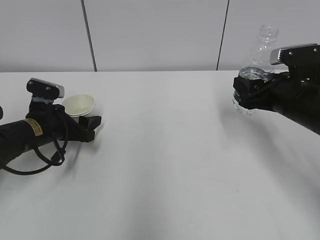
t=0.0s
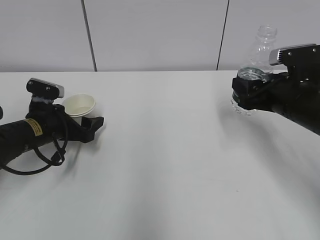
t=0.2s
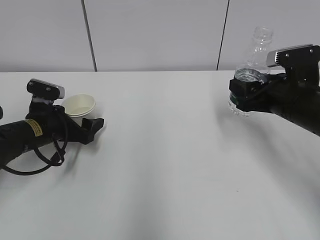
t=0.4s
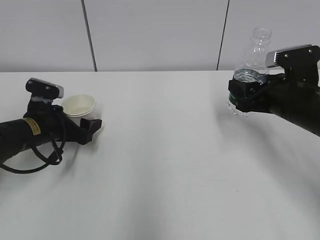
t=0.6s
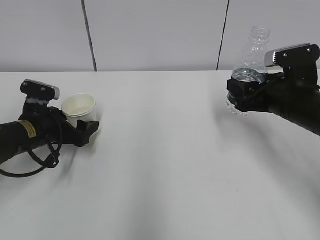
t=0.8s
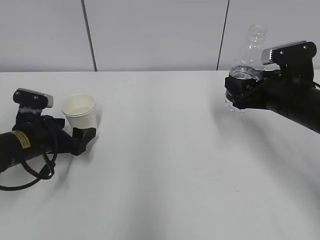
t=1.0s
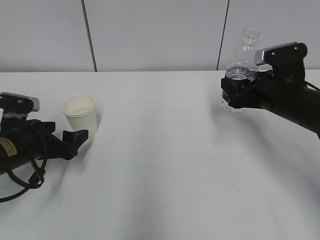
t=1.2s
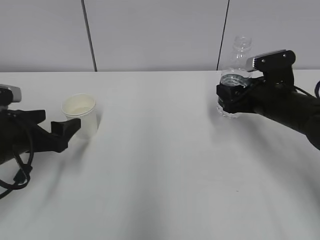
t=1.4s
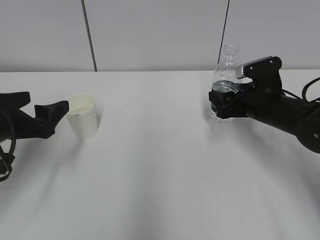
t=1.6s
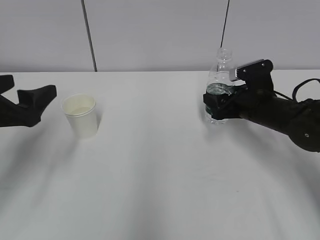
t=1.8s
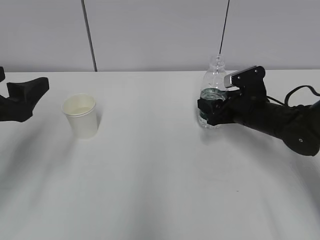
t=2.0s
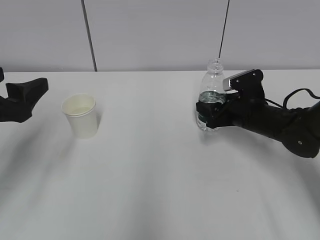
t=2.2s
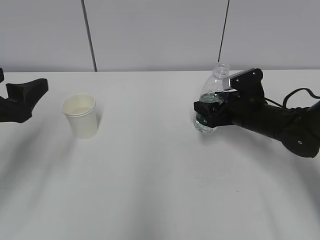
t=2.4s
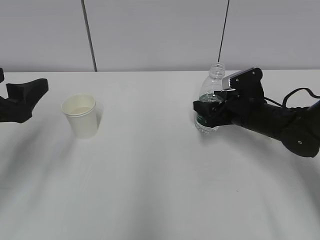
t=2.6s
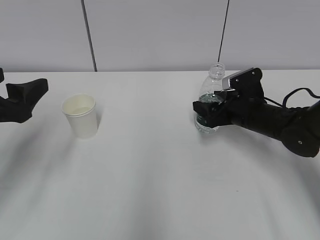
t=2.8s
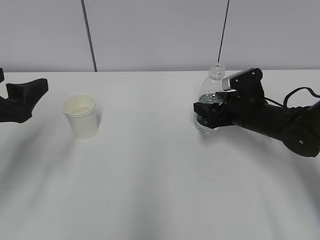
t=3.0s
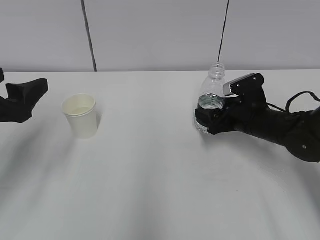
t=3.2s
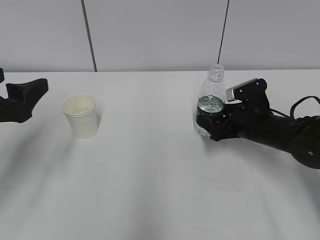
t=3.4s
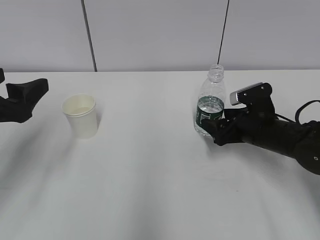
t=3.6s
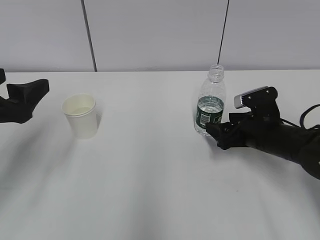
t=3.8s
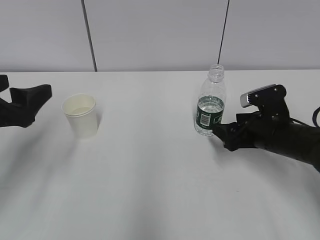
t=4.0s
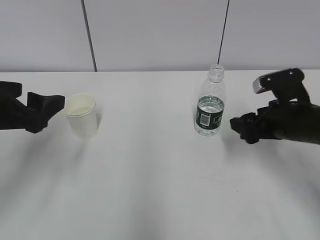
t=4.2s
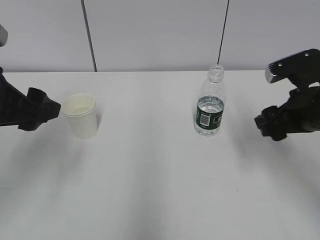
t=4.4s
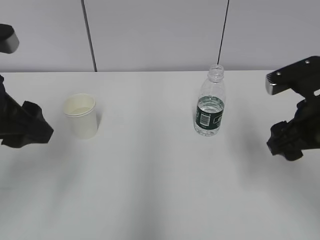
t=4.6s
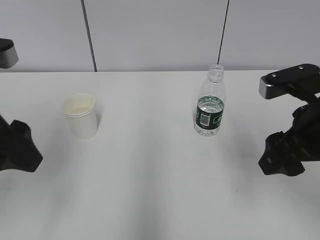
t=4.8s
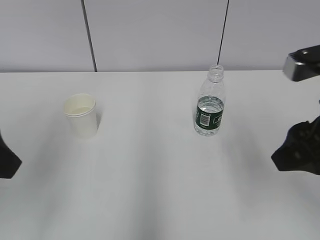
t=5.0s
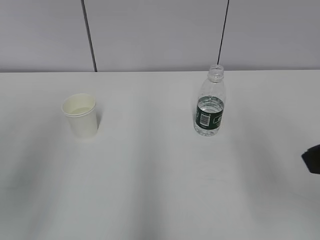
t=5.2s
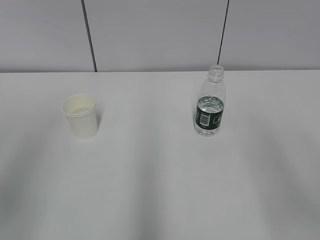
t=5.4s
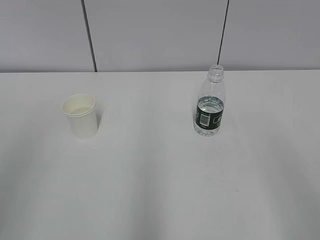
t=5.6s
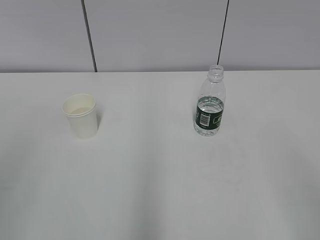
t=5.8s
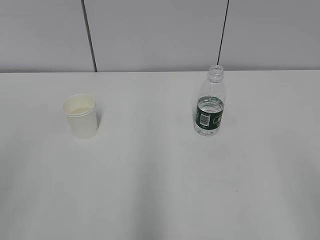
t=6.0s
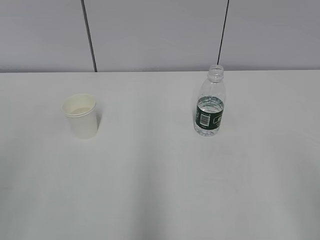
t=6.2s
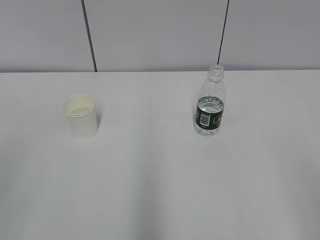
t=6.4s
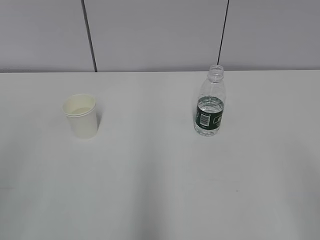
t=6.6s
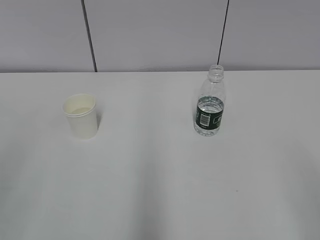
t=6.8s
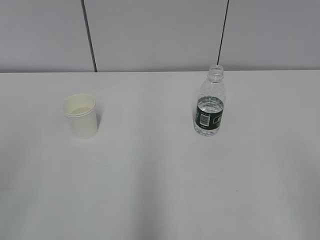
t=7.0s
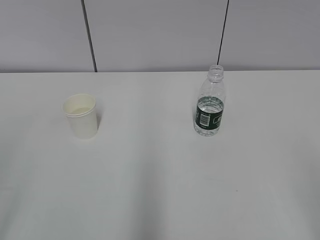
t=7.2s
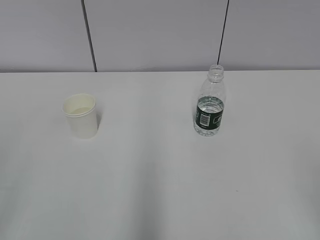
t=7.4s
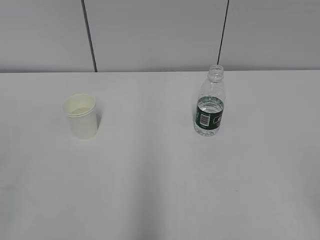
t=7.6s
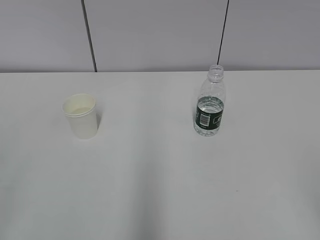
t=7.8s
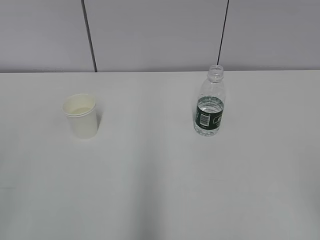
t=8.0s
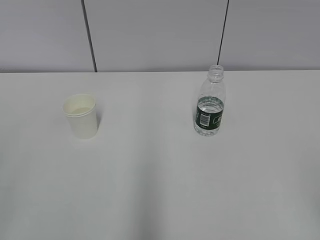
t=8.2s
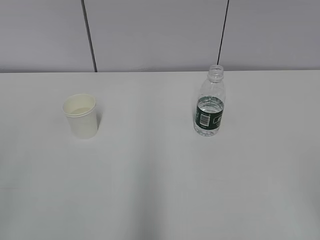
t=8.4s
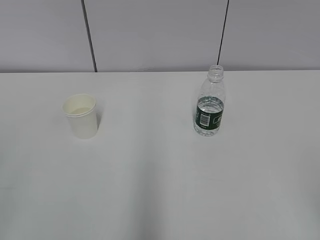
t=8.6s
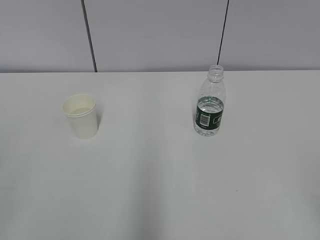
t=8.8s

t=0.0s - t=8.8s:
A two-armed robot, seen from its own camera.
t=0.0s - t=1.4s: The left gripper moves backward, roughly 10 cm, and opens.
t=1.4s - t=3.0s: The left gripper moves upward, about 10 cm; the right gripper heads downward, covering some 5 cm, and opens its fingers.
t=3.0s - t=4.4s: The right gripper goes approximately 15 cm backward and upward.
t=4.4s - t=5.8s: Both grippers travel together backward, approximately 25 cm.

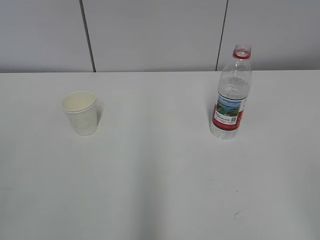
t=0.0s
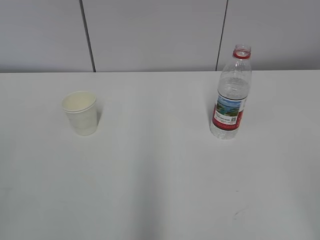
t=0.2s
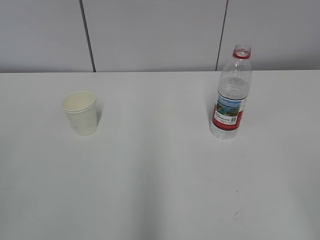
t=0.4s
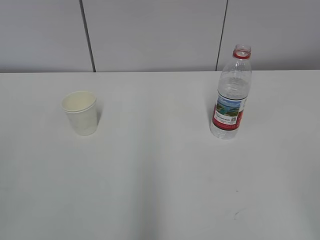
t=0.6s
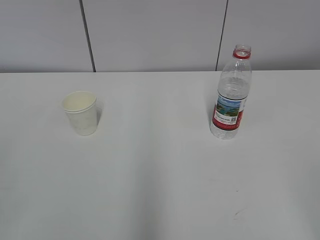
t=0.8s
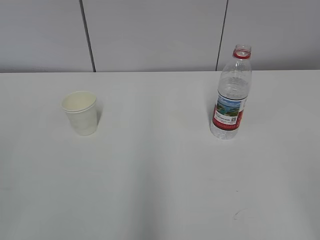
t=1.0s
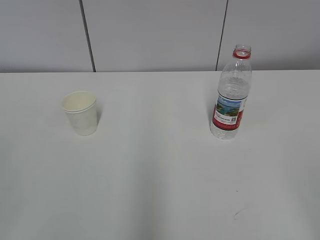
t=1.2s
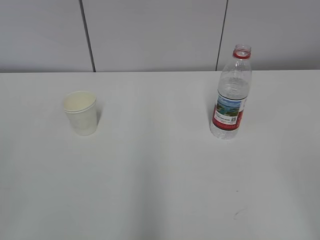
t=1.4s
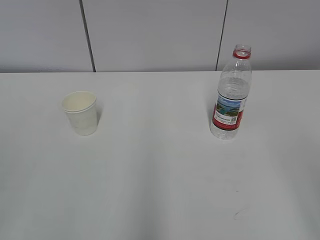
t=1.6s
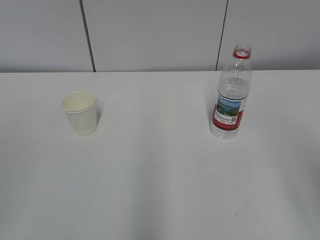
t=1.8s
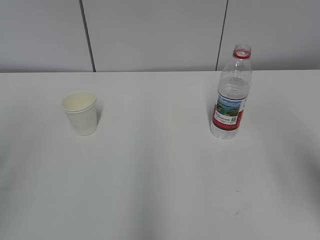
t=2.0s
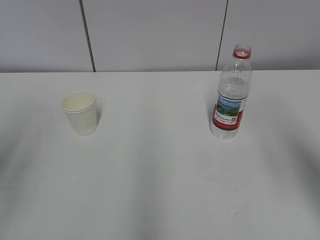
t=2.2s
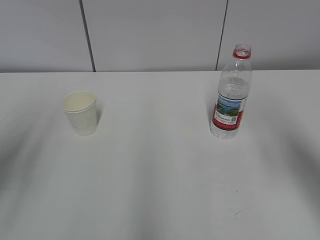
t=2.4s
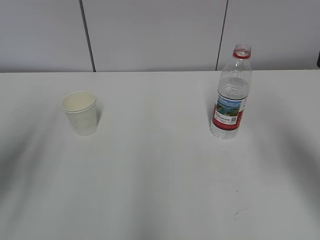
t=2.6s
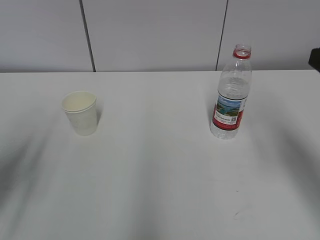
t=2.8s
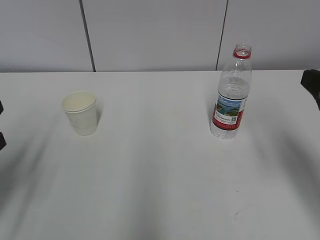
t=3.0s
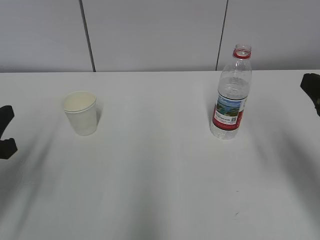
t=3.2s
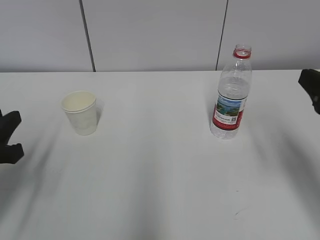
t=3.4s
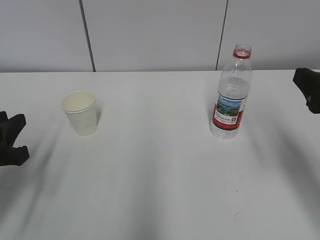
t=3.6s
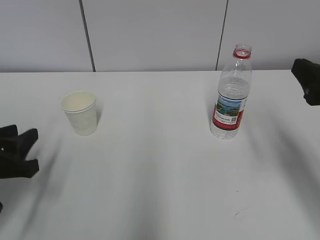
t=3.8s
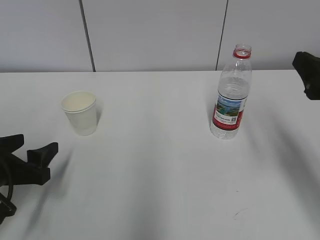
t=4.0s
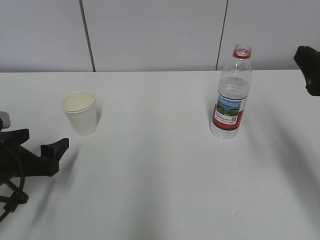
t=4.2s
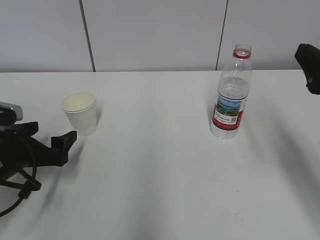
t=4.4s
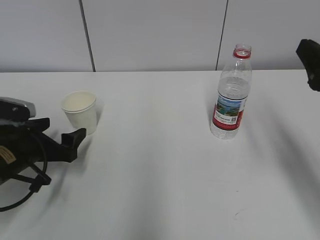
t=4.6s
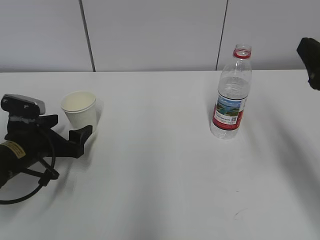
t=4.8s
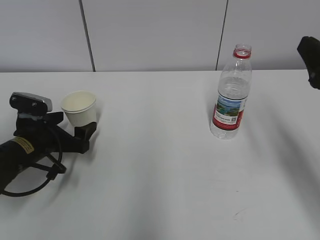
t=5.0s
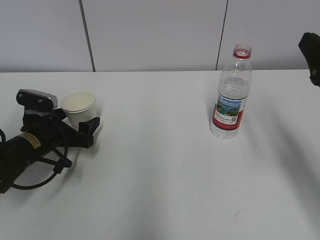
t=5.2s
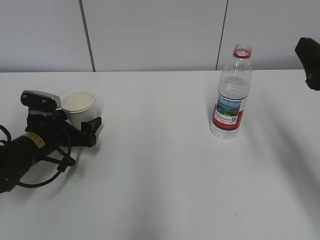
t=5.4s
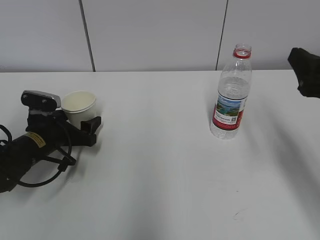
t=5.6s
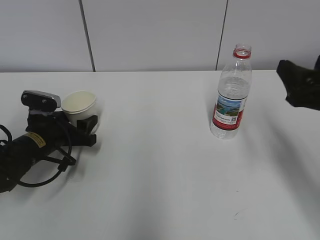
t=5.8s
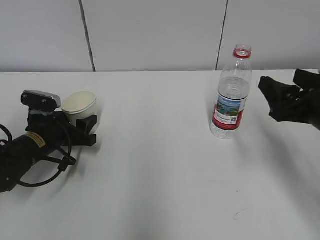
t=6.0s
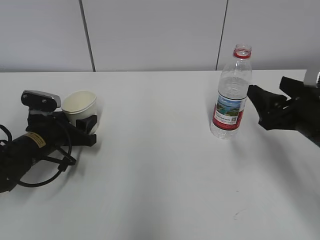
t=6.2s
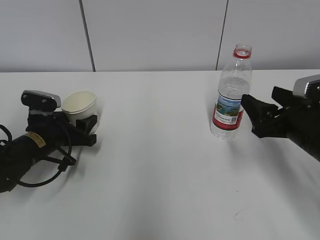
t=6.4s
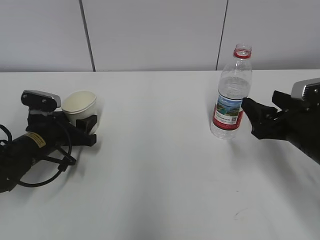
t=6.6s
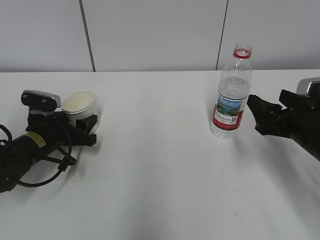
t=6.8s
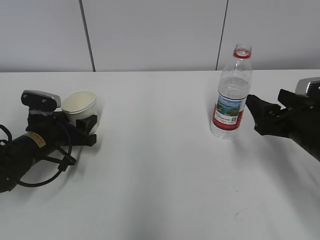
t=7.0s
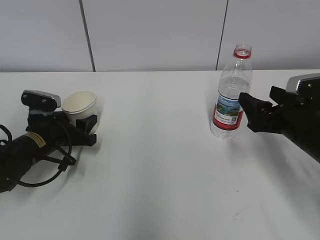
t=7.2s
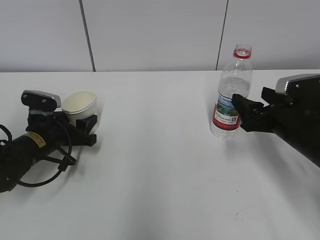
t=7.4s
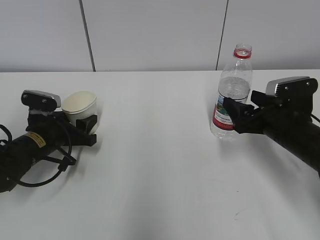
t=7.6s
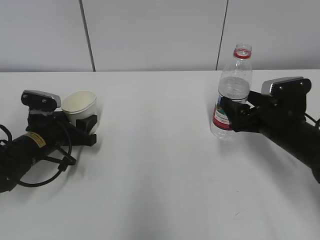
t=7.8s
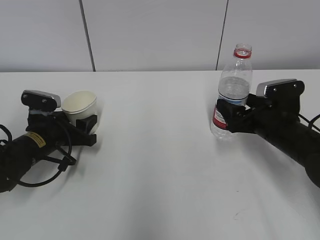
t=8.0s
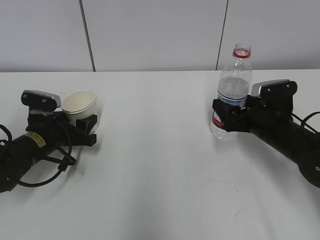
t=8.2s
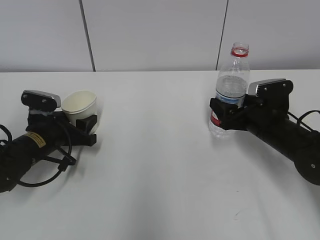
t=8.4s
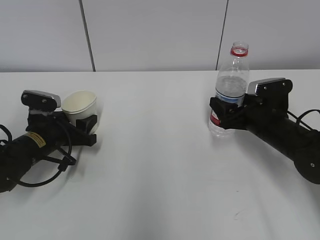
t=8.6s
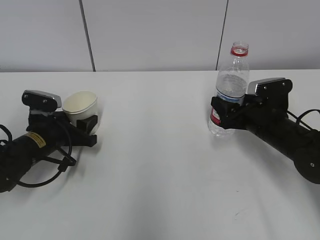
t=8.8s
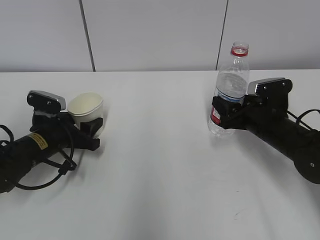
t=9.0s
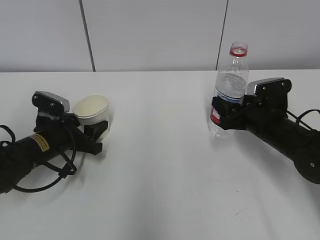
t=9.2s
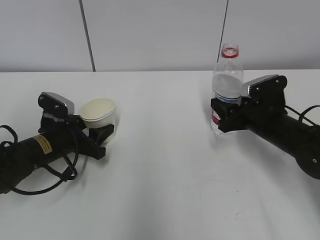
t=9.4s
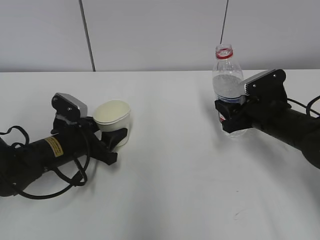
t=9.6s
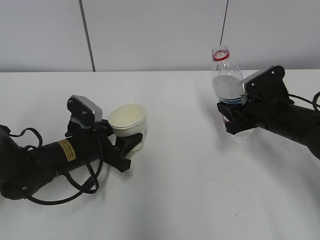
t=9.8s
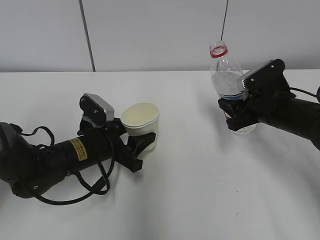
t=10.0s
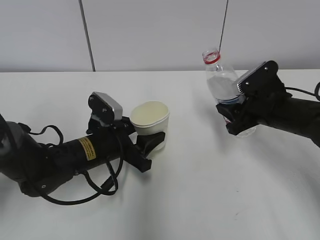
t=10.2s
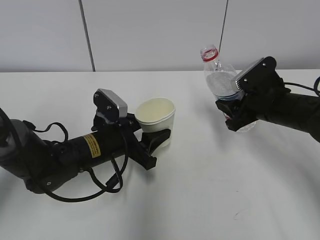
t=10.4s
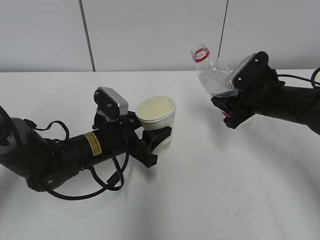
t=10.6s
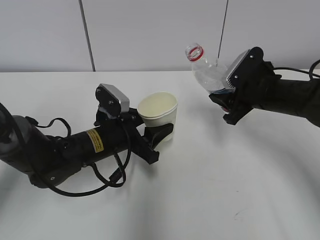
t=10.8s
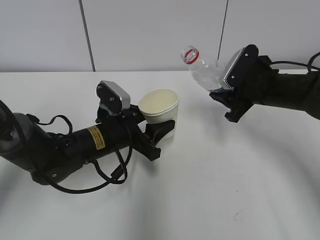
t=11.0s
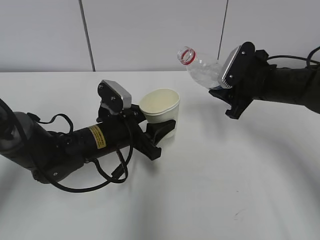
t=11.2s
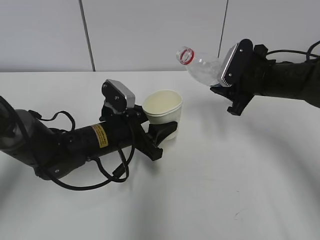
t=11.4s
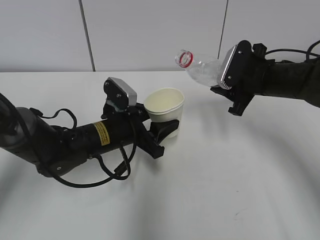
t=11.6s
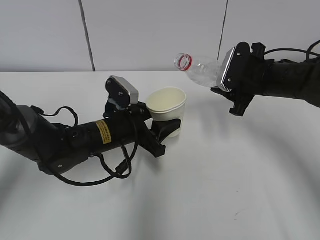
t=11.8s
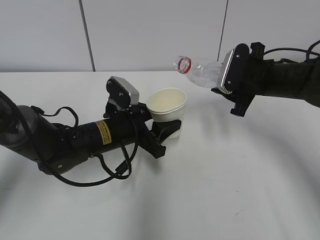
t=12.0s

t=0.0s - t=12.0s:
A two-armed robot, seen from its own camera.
Step, t=0.0s - t=7.2s: Grab the paper cup with the left hand.
Step, t=7.4s - t=7.6s: Grab the water bottle with the right hand.
t=1.6s - t=3.0s: The right gripper heads forward, covering approximately 20 cm; the left gripper travels forward and downward by roughly 20 cm.
t=3.0s - t=4.4s: The left gripper travels downward and forward by approximately 15 cm, and opens up.
t=4.4s - t=6.0s: The left gripper moves forward, approximately 10 cm, and closes up, while the right gripper goes some 5 cm downward.
t=6.0s - t=7.6s: The right gripper heads downward and forward, covering roughly 10 cm.
t=7.6s - t=9.0s: The right gripper changes place by roughly 5 cm, and closes its fingers.
t=9.0s - t=10.4s: The left gripper travels to the right by roughly 10 cm.
t=10.4s - t=12.0s: The right gripper shifts by about 5 cm.

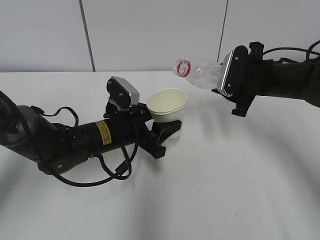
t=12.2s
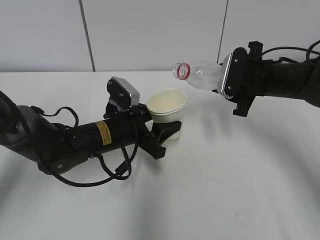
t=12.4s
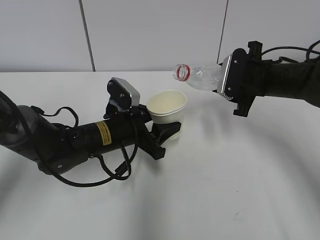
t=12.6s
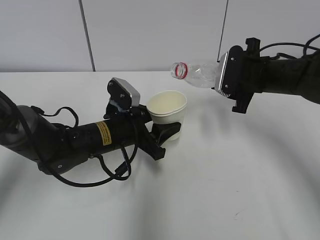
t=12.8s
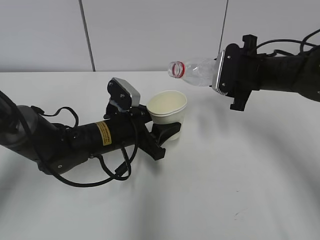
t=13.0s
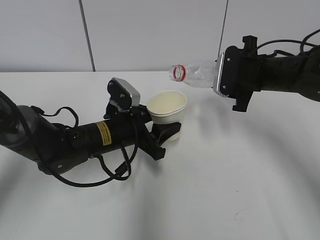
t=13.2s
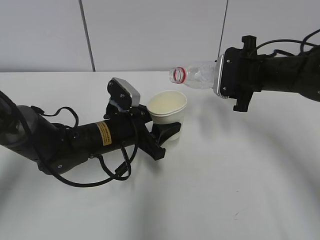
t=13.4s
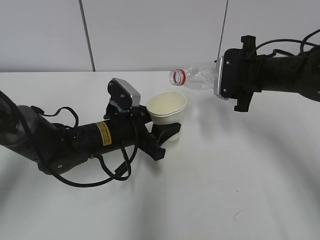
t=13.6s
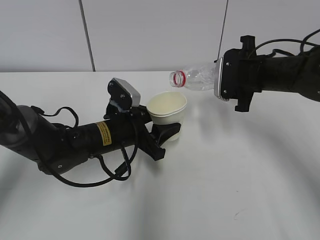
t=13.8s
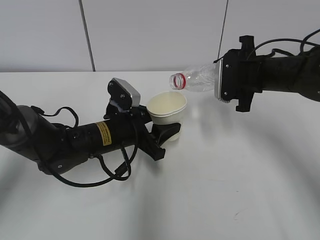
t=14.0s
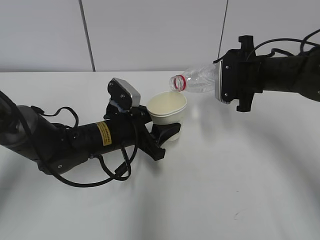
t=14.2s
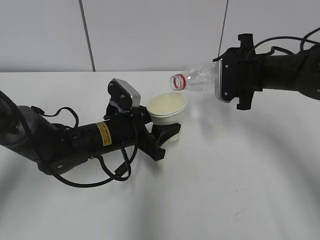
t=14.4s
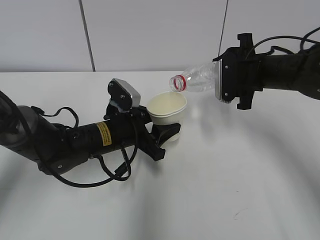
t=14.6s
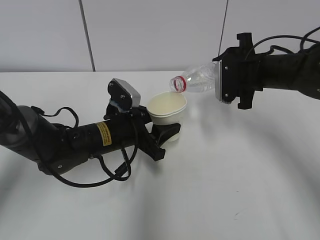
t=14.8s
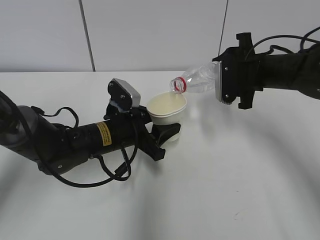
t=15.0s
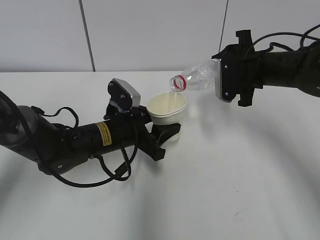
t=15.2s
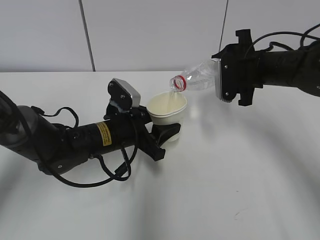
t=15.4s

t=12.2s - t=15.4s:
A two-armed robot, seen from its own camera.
t=12.2s - t=13.8s: The grippers make only small movements.
t=13.8s - t=15.4s: The grippers stay close to where they were, moving slightly.
